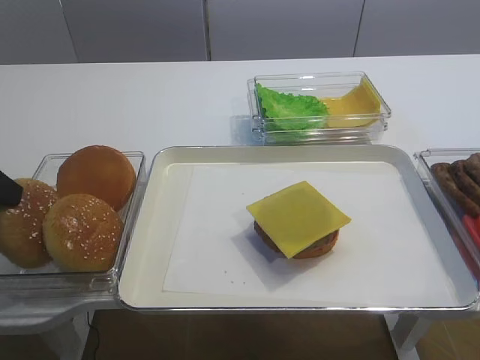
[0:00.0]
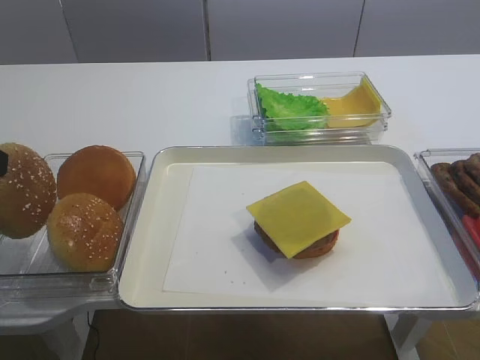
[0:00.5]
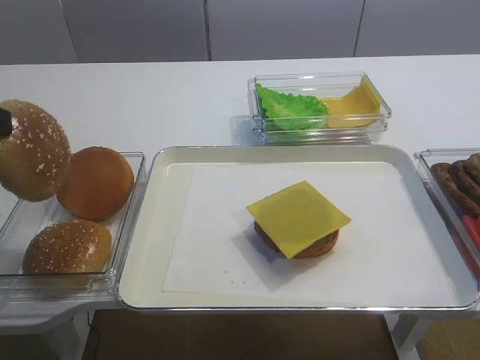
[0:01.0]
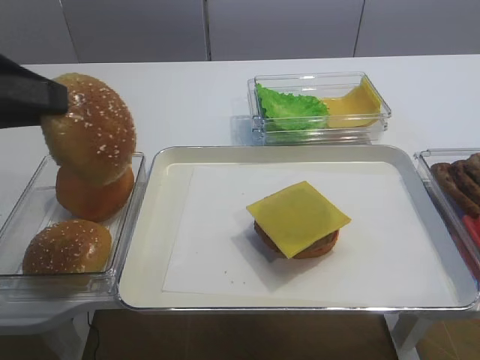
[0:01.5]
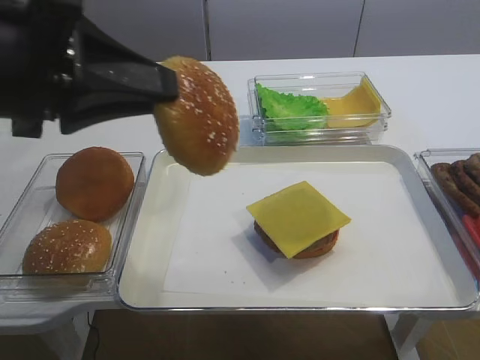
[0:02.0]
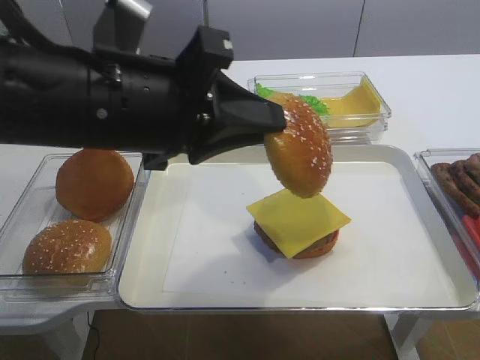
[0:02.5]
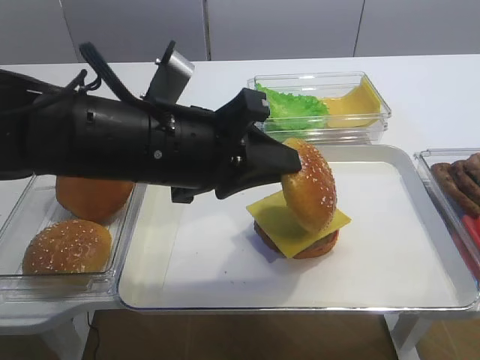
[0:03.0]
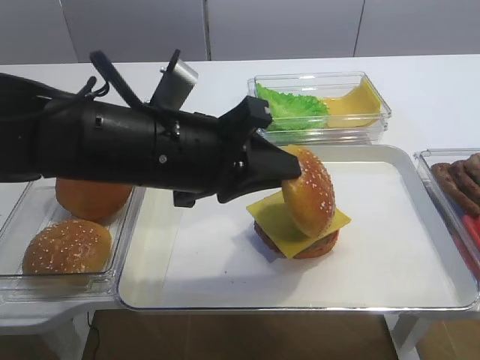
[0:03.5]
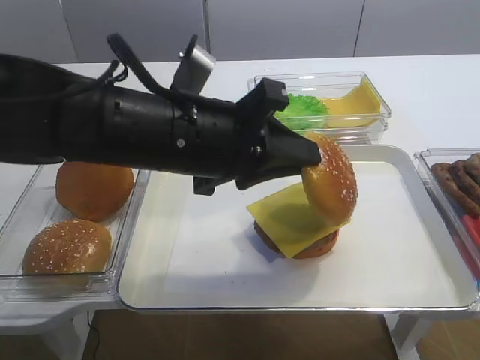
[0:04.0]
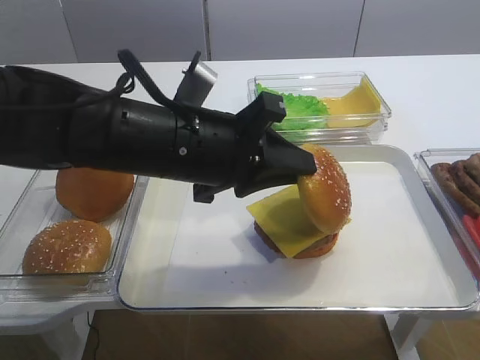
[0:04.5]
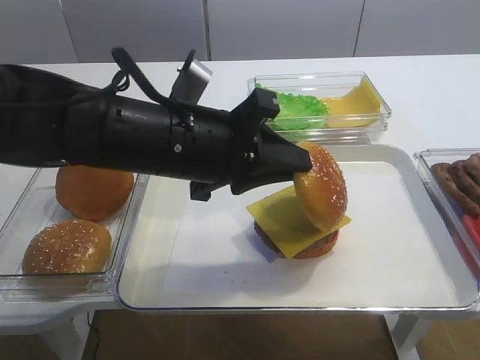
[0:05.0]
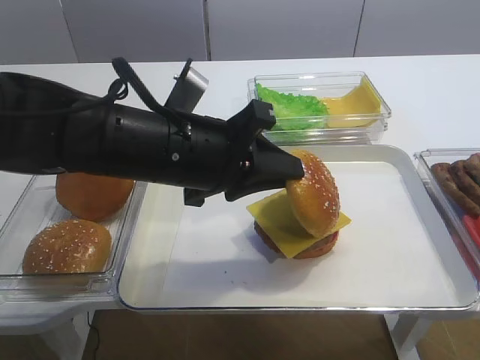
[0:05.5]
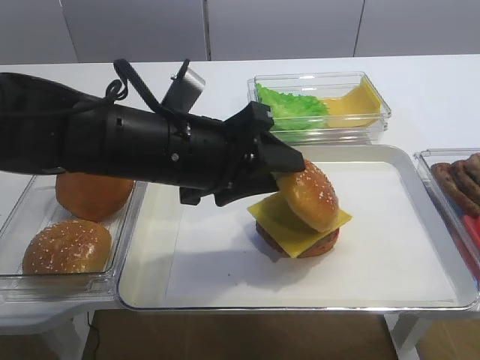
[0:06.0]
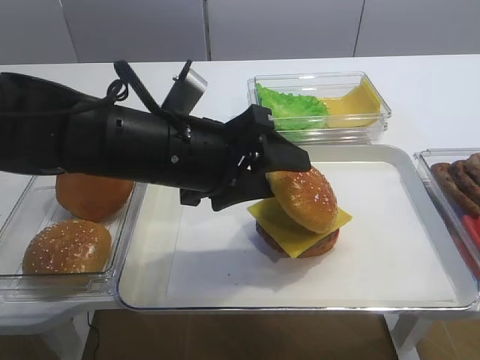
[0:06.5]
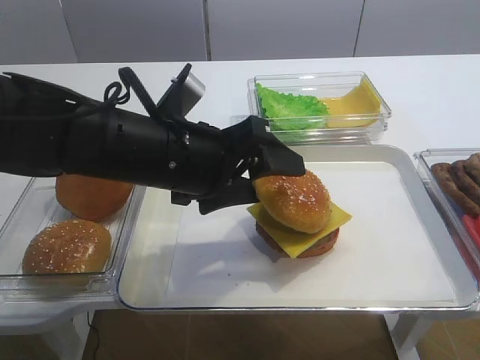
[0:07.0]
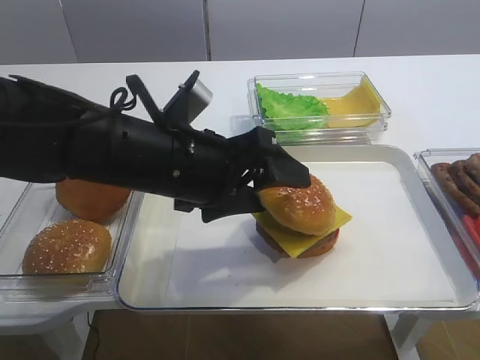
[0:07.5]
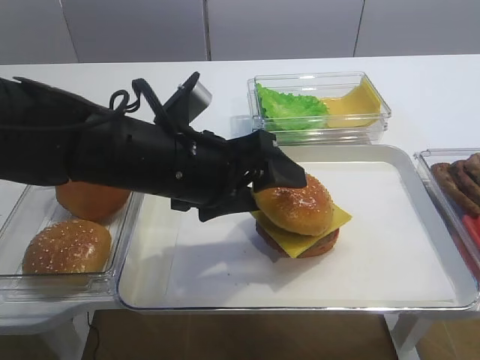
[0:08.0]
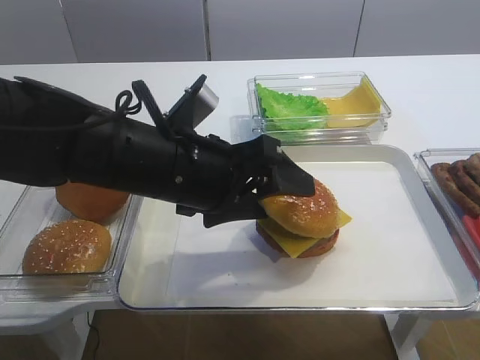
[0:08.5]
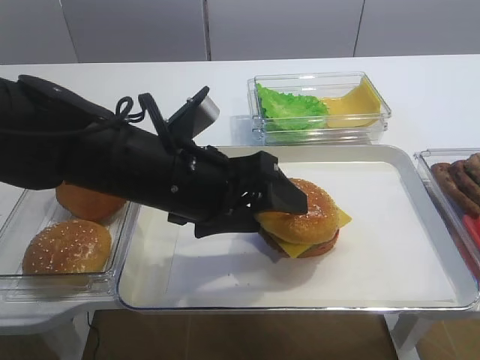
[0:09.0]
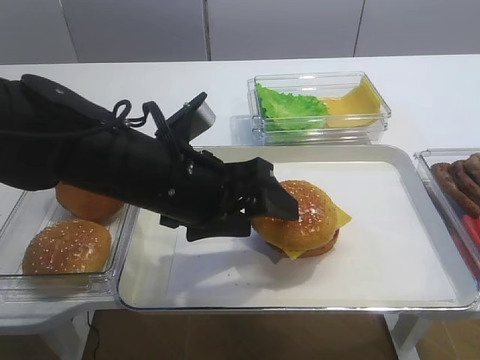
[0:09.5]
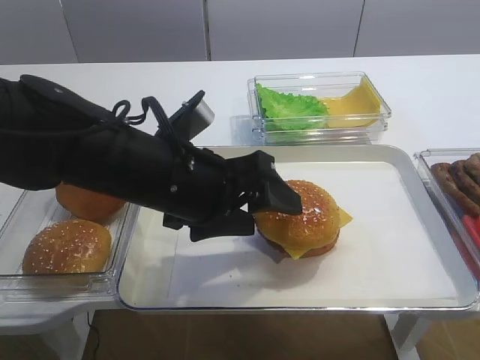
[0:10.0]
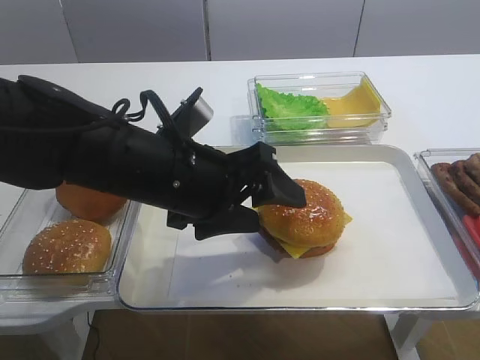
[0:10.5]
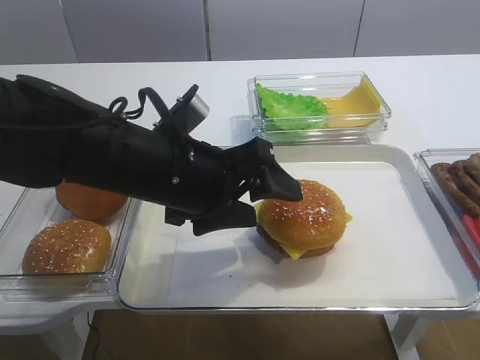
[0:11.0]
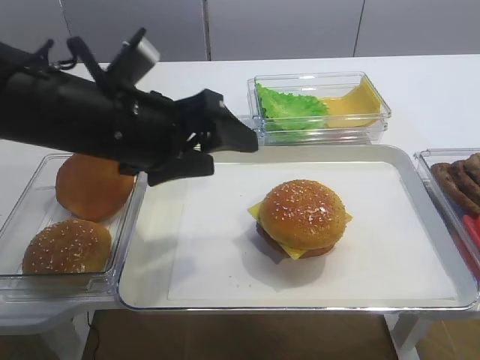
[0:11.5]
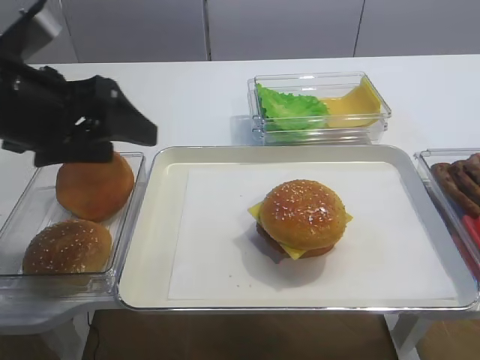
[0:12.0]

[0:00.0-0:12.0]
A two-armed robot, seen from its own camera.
Step, 0:00.5 to 0:11.0: Place the hamburger lid on the cheese slice with the left gripper.
0:00.0 to 0:02.0: The left gripper moves to the right and upward, roughly 15 cm.
0:02.0 to 0:04.0: The left gripper shifts approximately 15 cm to the right, downward and forward.
0:04.0 to 0:06.0: The right gripper closes up, while the left gripper opens.
0:06.0 to 0:08.0: The left gripper opens its fingers.
0:08.0 to 0:10.0: The grippers stay close to where they were, moving slightly.
0:10.0 to 0:12.0: The left gripper travels to the left and upward by about 15 cm.

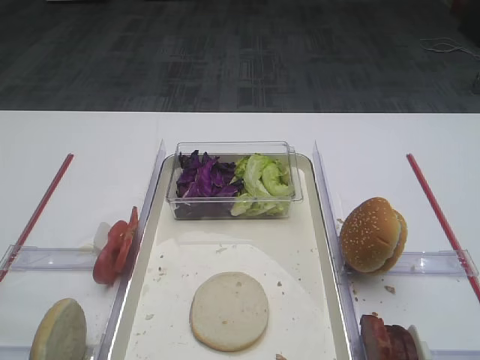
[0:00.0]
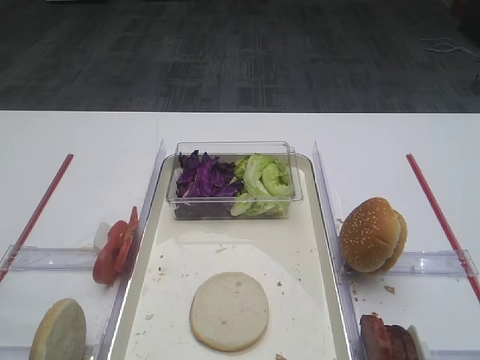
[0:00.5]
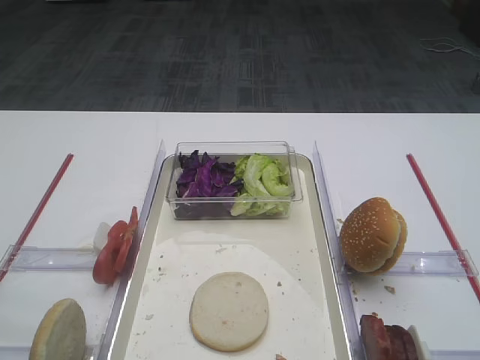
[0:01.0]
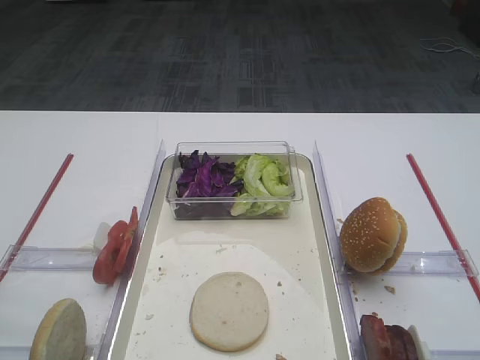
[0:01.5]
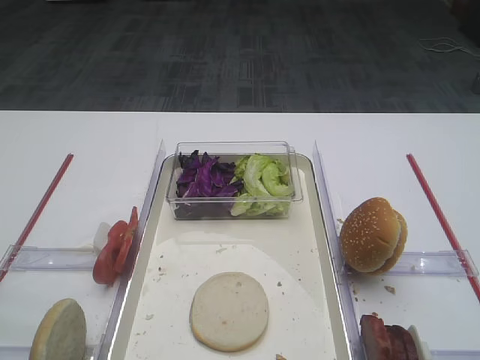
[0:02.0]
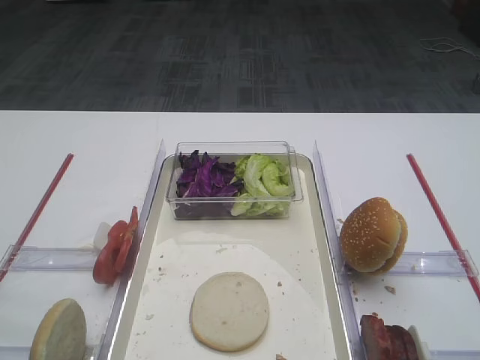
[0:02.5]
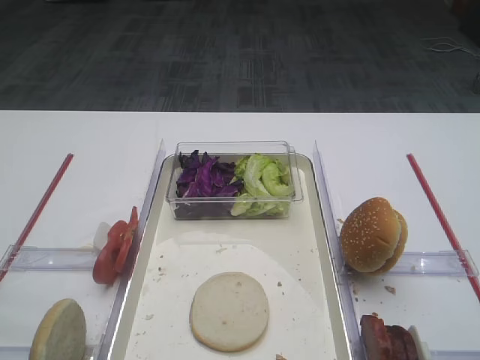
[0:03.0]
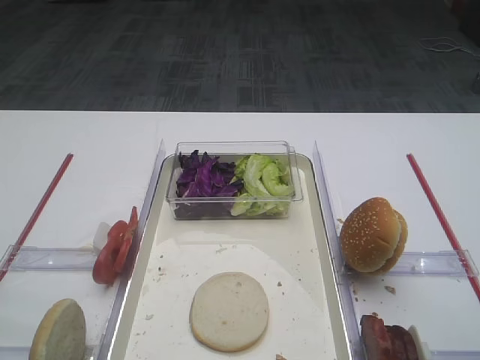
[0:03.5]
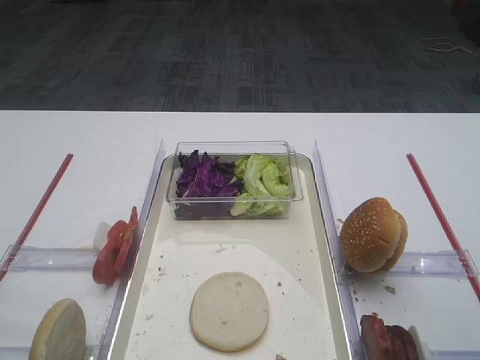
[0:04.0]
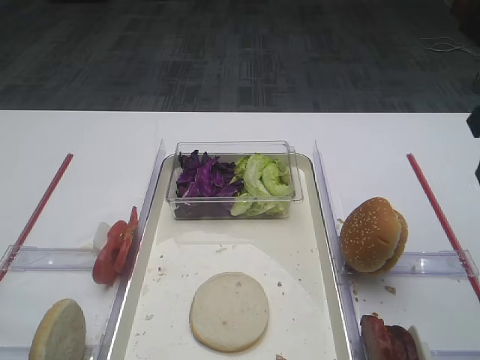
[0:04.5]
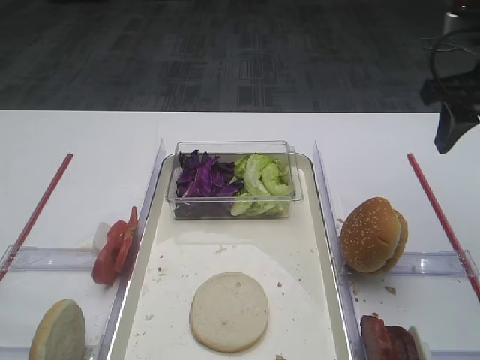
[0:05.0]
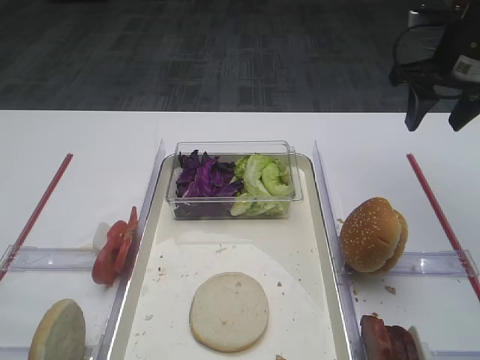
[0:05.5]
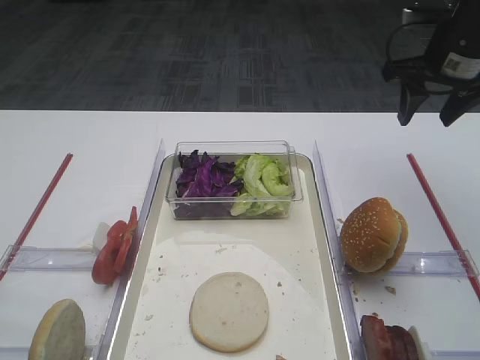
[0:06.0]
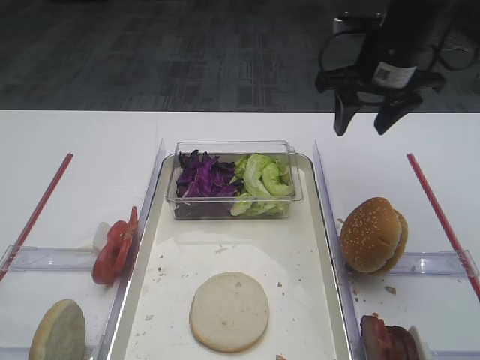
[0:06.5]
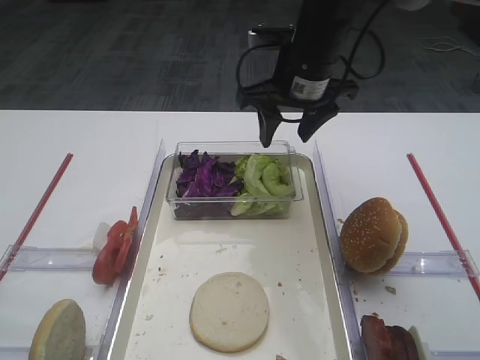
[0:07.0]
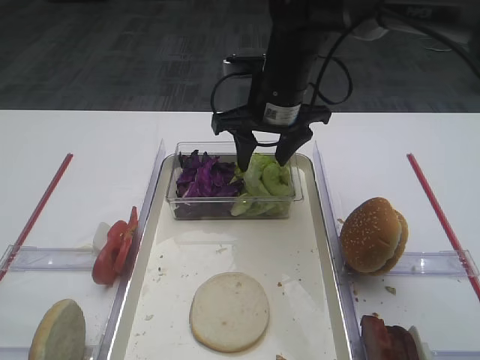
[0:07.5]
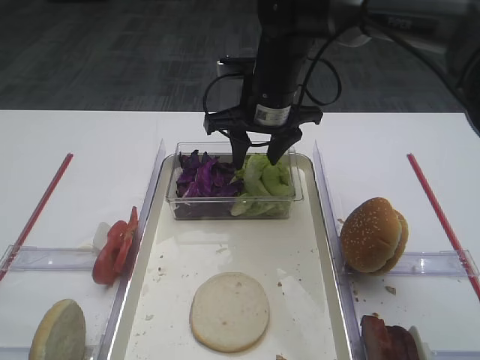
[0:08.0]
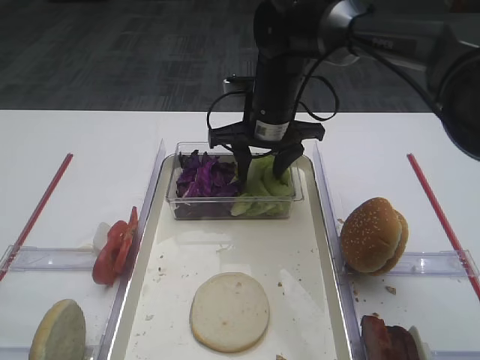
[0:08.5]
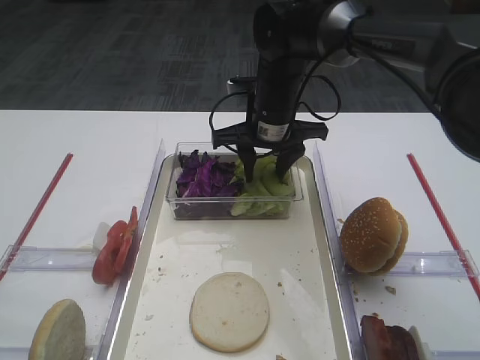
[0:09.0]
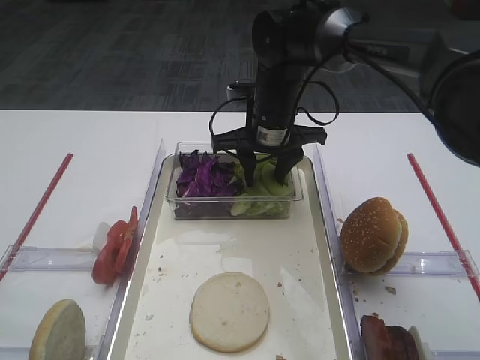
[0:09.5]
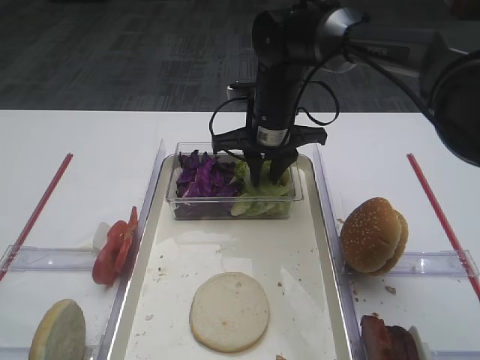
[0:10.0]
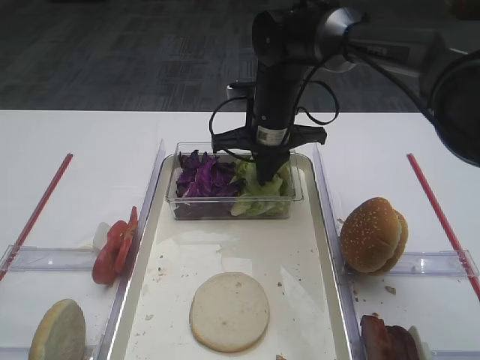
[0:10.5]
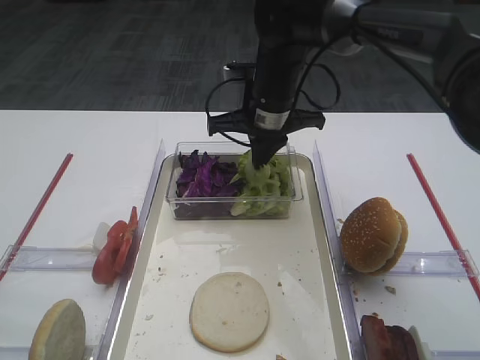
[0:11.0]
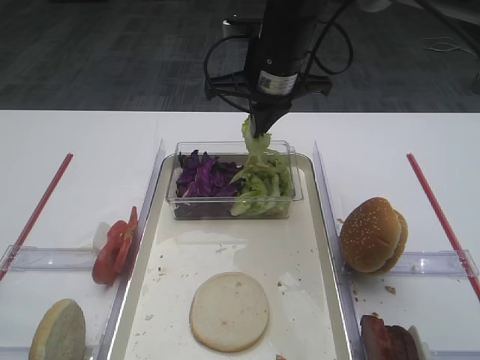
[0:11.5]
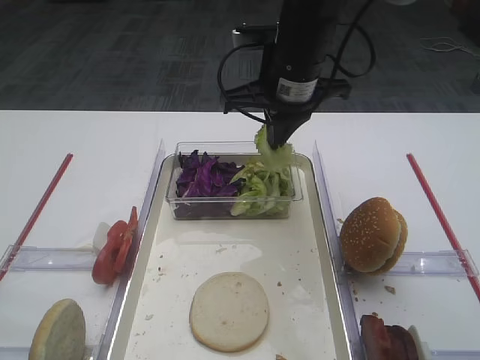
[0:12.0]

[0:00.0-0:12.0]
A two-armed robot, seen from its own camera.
Step, 0:00.0 to 0:11.5: Pick up the lettuce leaf with the right gripper.
0:04.0 to 0:06.0: The right gripper shifts some 25 cm forward.
0:06.0 to 0:08.0: The right gripper heads to the left, covering about 20 cm.
0:08.0 to 0:10.0: The grippers move only a little.
0:10.0 to 0:12.0: The right gripper shifts approximately 10 cm upward, and closes its fingers.

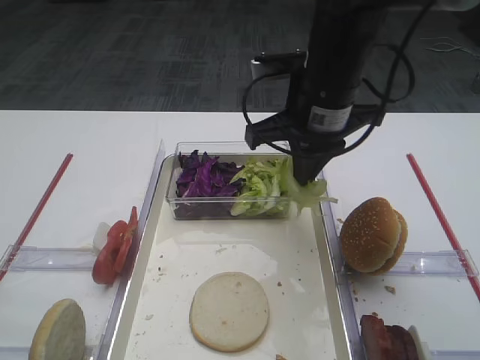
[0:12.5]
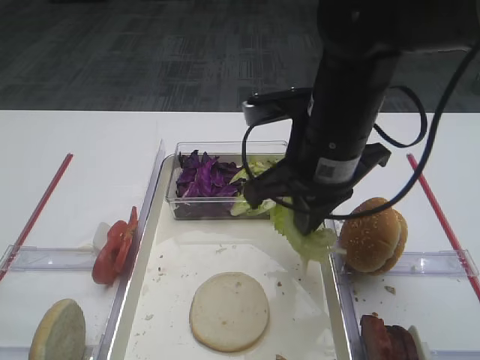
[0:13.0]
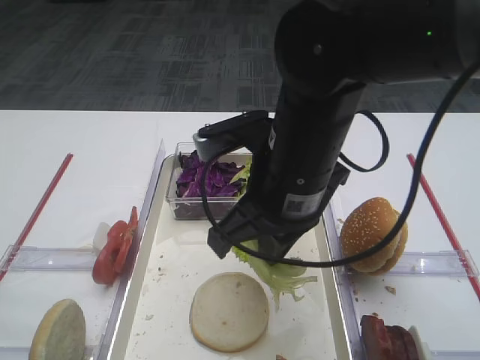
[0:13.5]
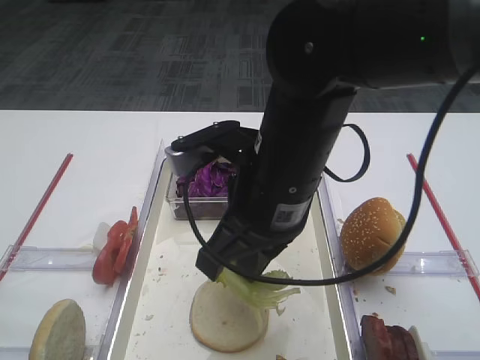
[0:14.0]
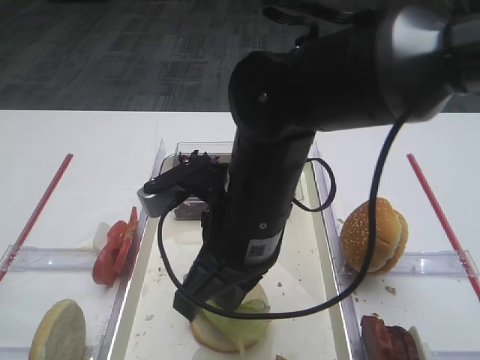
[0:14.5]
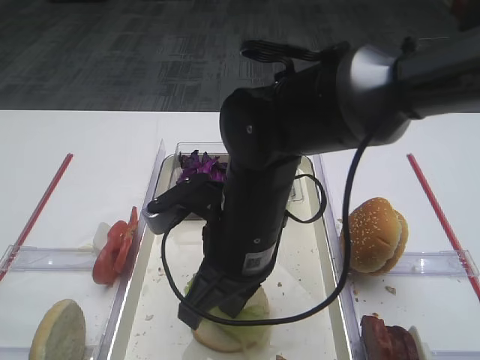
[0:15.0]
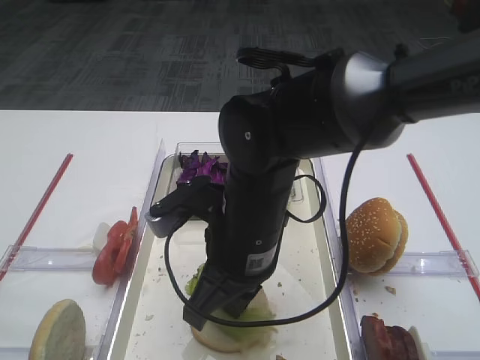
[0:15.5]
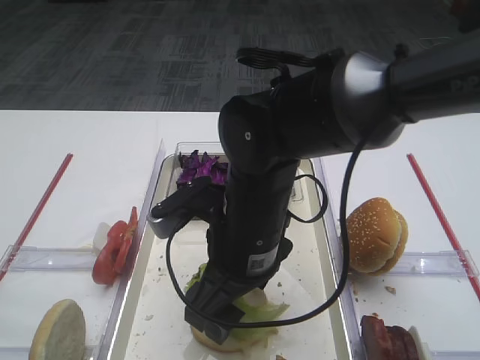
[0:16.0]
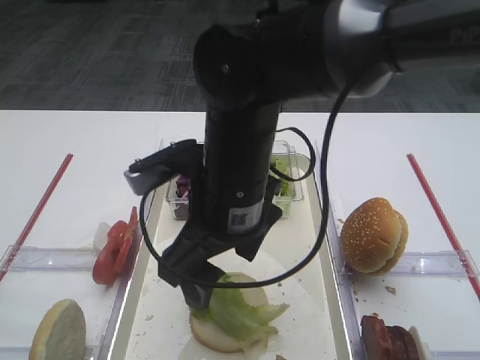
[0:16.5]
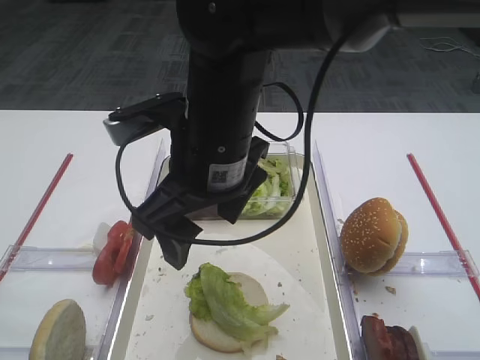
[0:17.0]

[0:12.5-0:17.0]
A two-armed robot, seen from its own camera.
Step, 0:12.5 to 0:16.5: Place the lettuce leaf on the bread slice with the right gripper.
0:12.5 to 0:14.5: The right gripper shifts roughly 15 cm backward and to the left.
0:14.5 to 0:17.0: The right gripper moves about 5 cm, and opens its fingers.
